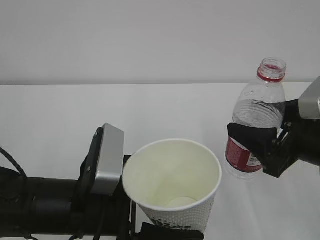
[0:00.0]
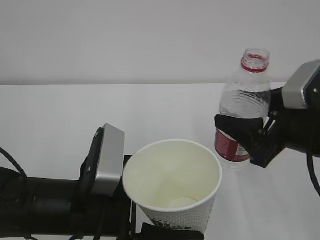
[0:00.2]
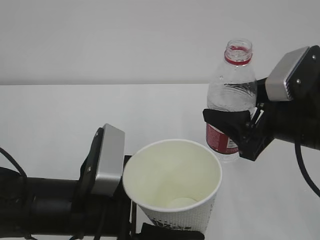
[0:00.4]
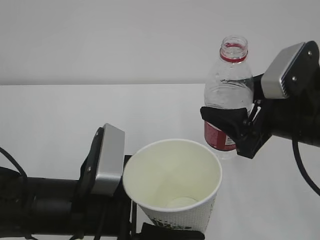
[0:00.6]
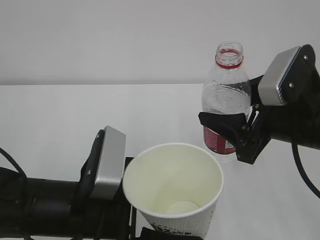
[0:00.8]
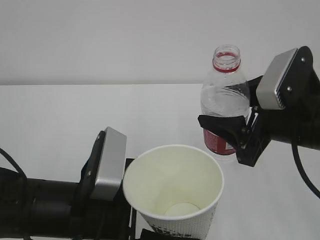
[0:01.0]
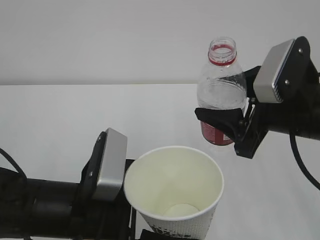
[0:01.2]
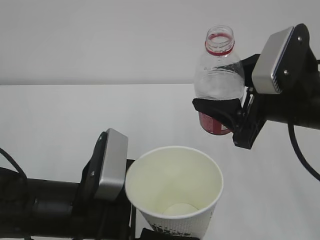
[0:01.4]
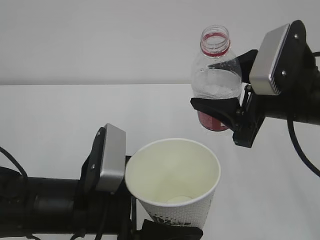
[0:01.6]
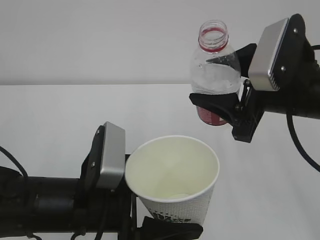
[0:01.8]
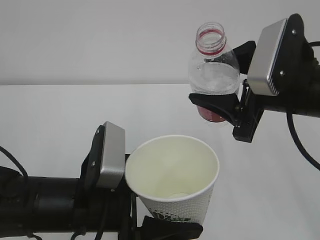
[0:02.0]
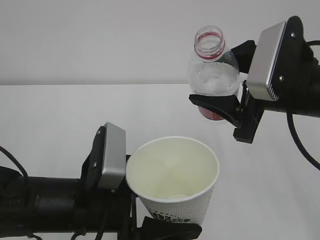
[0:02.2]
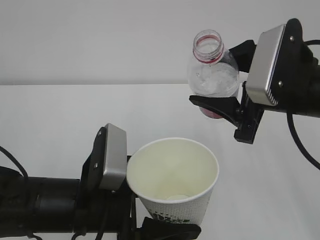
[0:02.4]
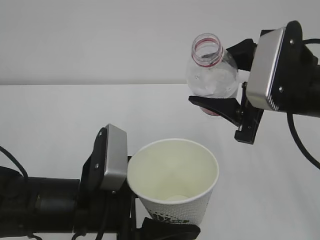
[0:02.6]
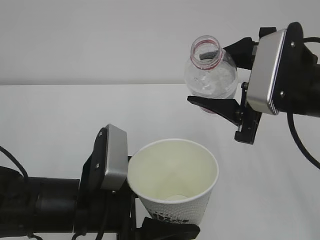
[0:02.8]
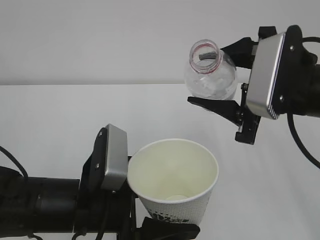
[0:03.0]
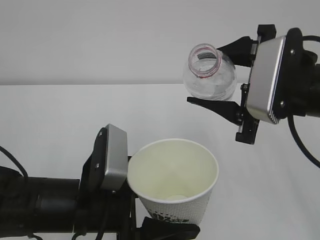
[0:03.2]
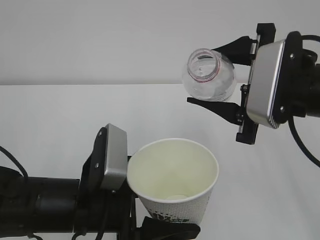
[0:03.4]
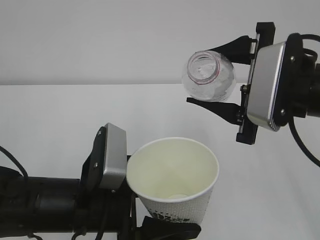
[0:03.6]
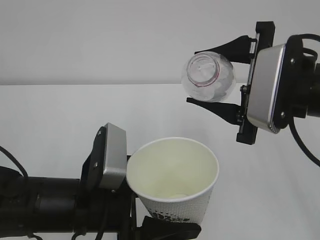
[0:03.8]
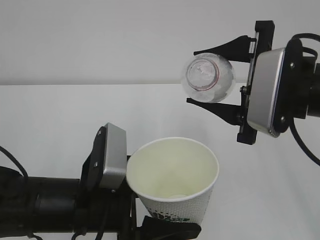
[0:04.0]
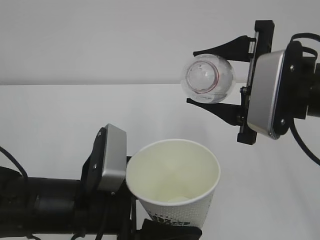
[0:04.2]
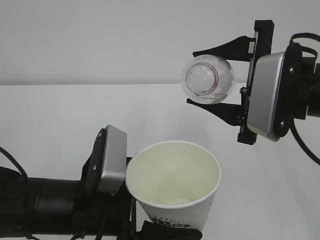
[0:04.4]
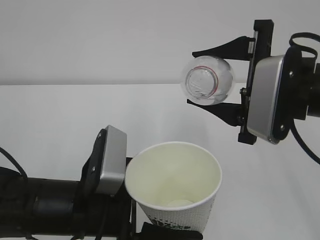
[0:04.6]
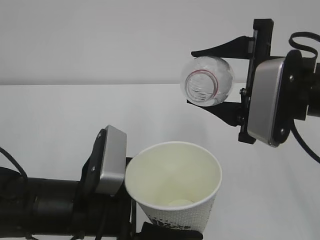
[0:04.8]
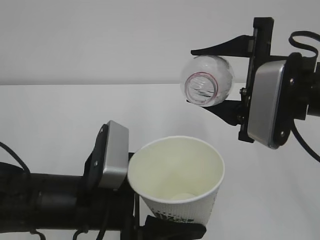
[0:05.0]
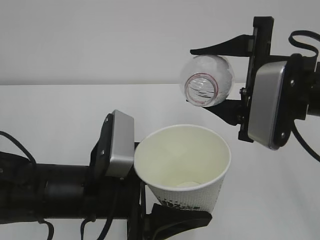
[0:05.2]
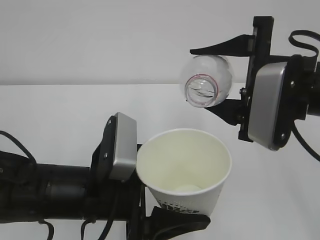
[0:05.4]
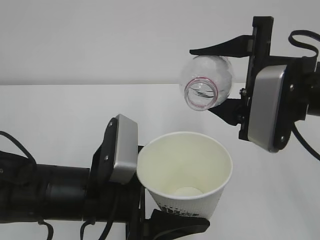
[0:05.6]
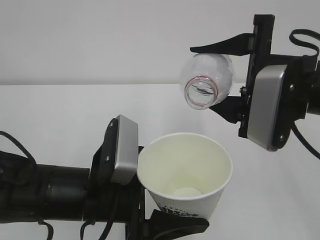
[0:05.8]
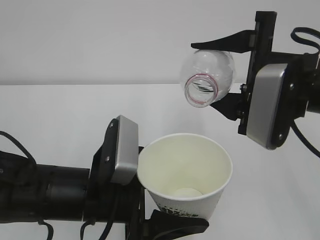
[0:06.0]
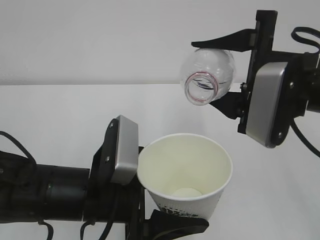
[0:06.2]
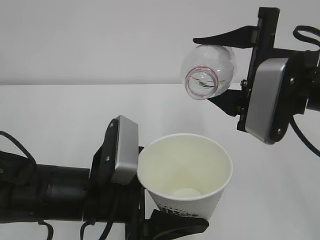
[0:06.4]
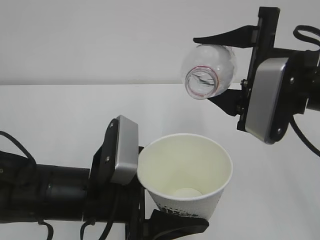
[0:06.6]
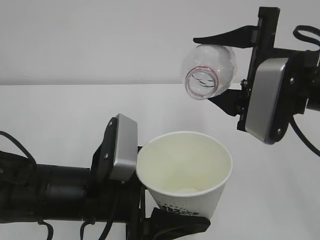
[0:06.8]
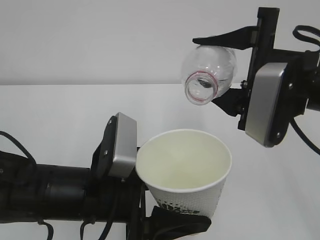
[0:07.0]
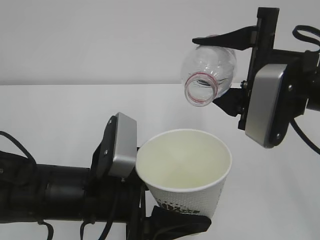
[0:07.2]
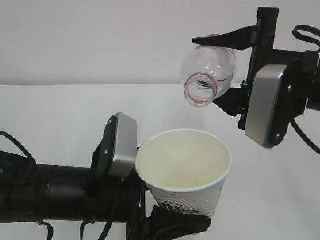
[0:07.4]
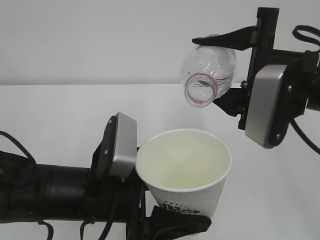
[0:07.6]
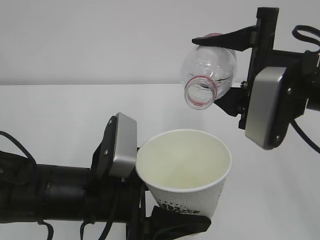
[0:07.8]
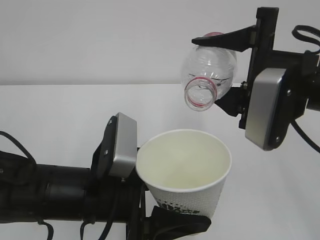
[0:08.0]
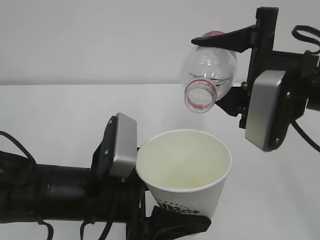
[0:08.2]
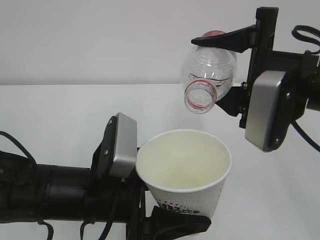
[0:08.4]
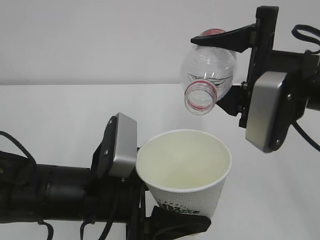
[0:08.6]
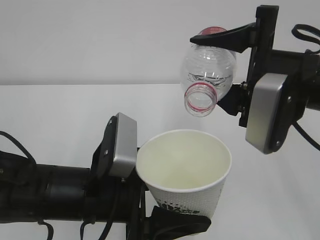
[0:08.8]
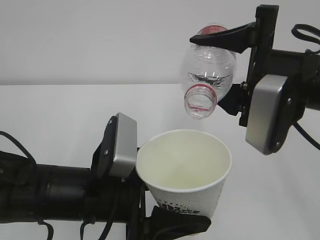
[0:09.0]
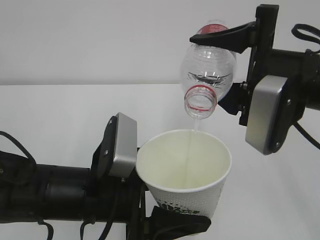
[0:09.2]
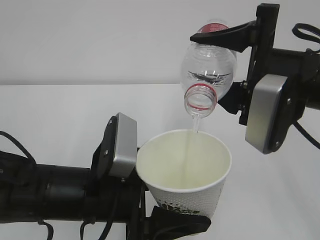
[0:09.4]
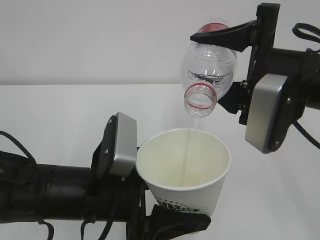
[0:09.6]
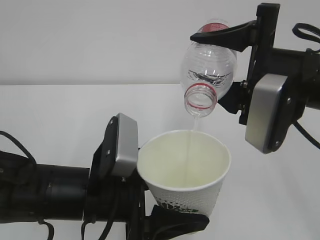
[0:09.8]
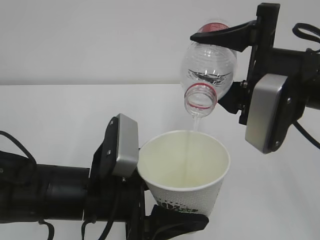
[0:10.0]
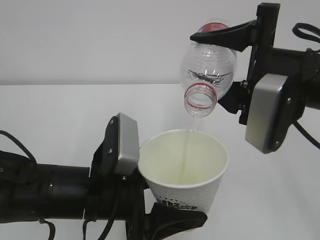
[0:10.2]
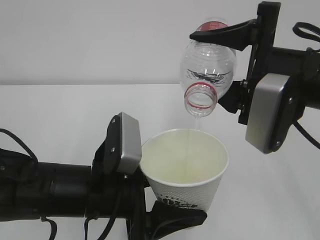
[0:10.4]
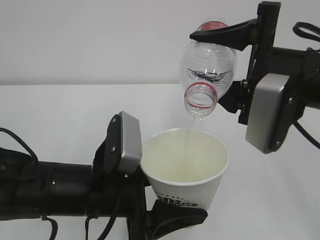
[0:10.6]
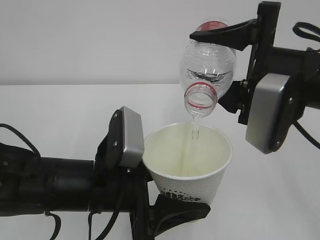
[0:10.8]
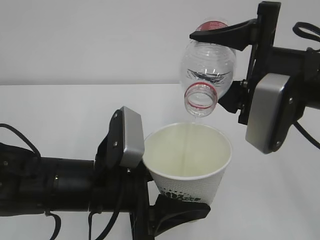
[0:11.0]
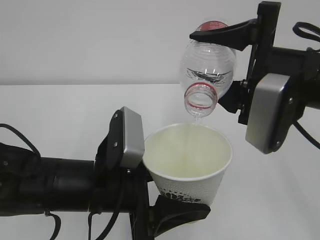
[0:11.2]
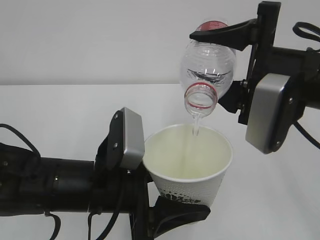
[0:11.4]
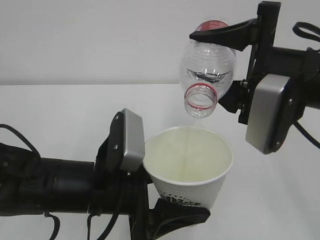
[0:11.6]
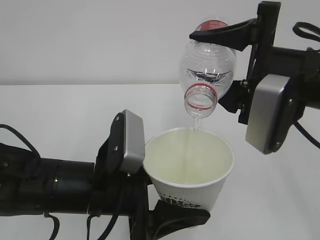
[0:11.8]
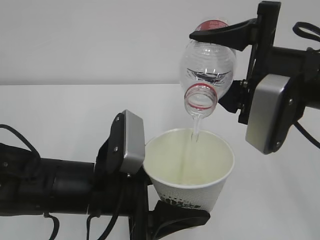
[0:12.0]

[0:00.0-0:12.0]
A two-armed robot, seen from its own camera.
0:00.0 to 0:01.6: The right gripper shifts approximately 5 cm upward.
0:03.0 to 0:04.4: The grippers move only a little.
0:04.4 to 0:06.0: The grippers make only small movements.
0:06.0 to 0:07.6: Both grippers stay about where they are.
0:07.6 to 0:09.0: The grippers move only a little.
0:09.0 to 0:12.0: The two grippers keep their place.

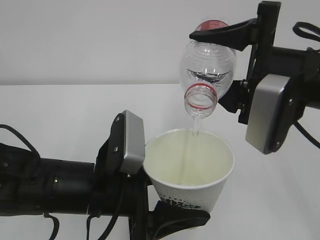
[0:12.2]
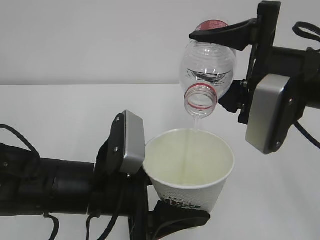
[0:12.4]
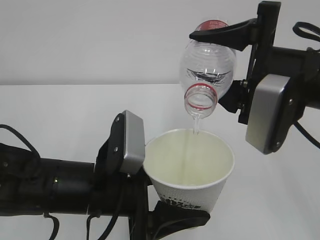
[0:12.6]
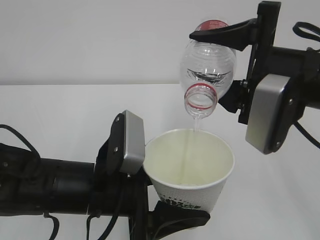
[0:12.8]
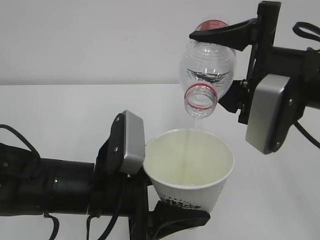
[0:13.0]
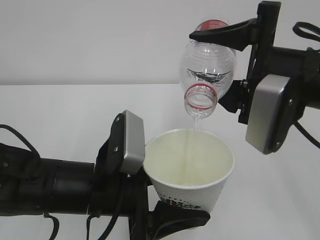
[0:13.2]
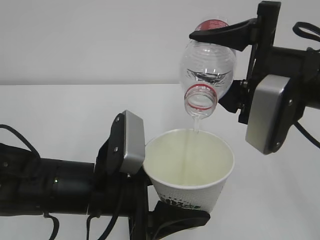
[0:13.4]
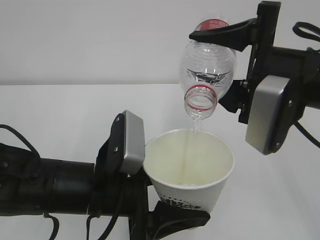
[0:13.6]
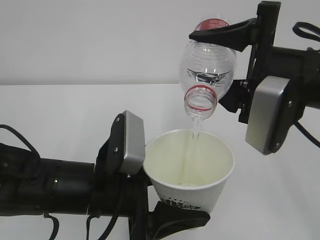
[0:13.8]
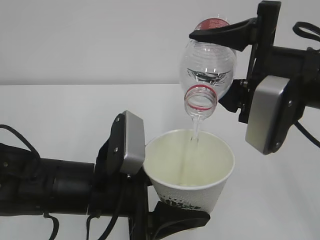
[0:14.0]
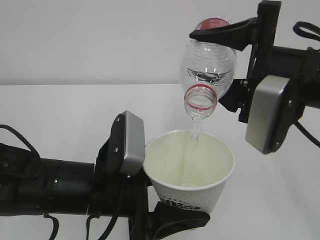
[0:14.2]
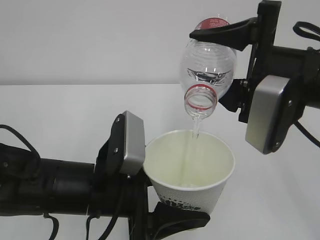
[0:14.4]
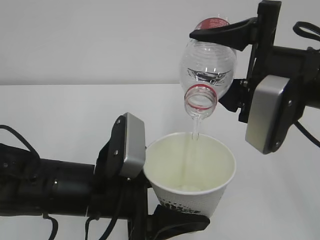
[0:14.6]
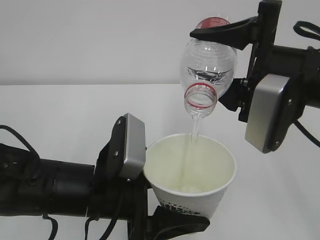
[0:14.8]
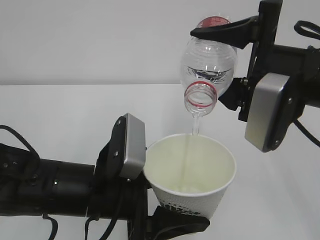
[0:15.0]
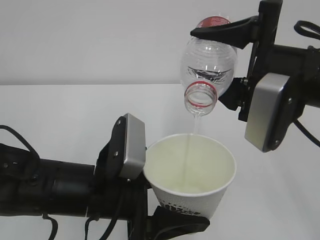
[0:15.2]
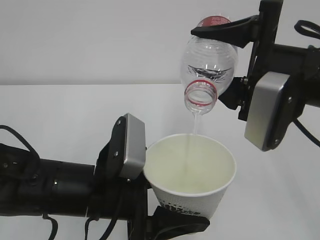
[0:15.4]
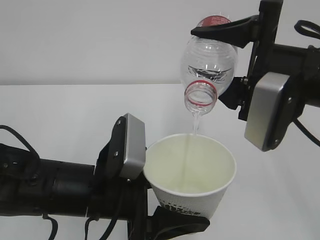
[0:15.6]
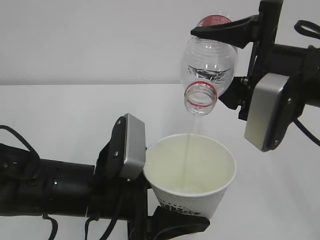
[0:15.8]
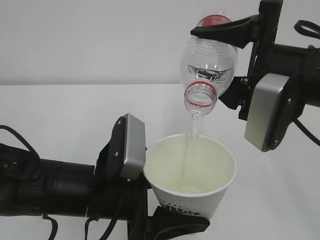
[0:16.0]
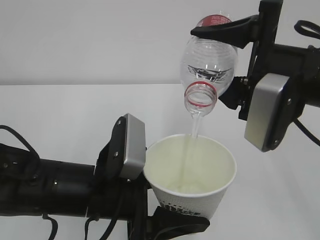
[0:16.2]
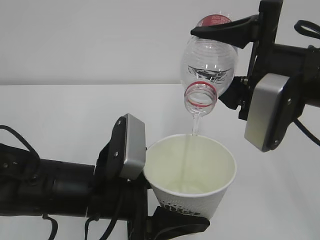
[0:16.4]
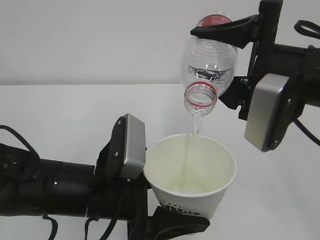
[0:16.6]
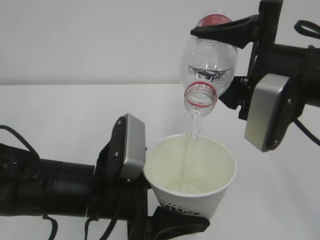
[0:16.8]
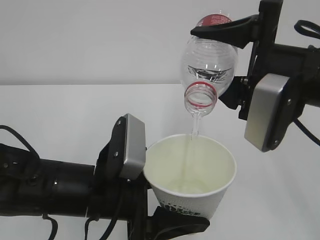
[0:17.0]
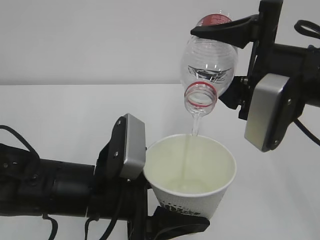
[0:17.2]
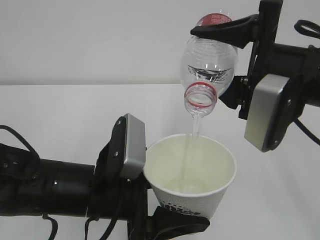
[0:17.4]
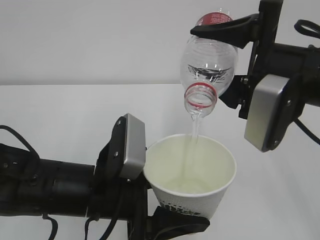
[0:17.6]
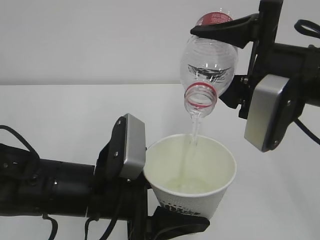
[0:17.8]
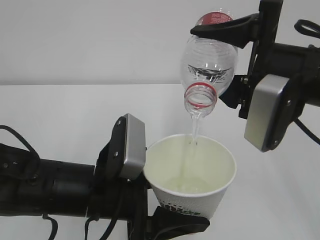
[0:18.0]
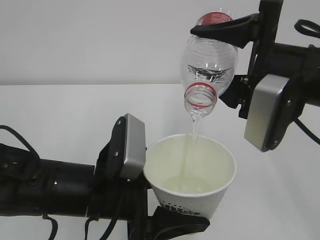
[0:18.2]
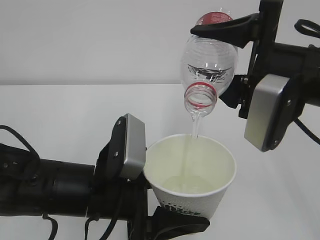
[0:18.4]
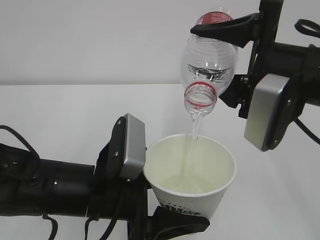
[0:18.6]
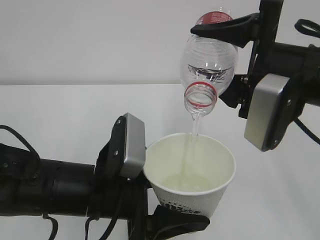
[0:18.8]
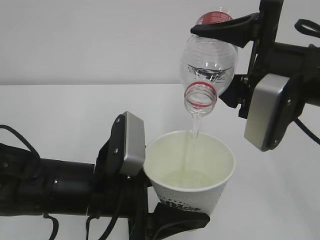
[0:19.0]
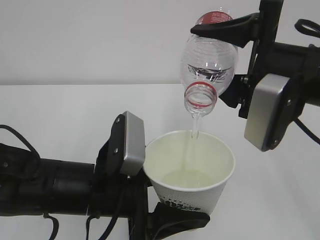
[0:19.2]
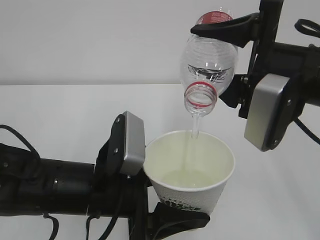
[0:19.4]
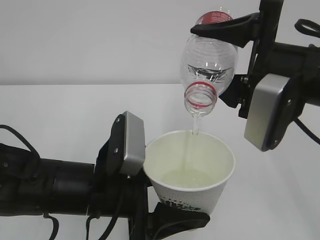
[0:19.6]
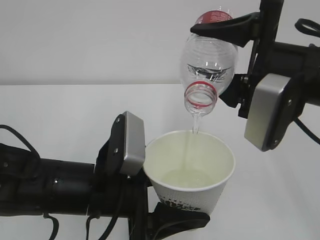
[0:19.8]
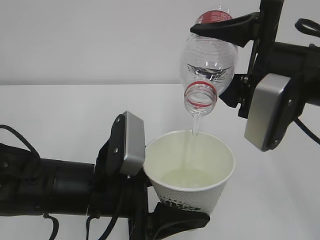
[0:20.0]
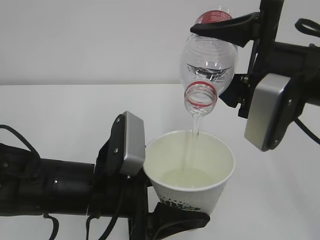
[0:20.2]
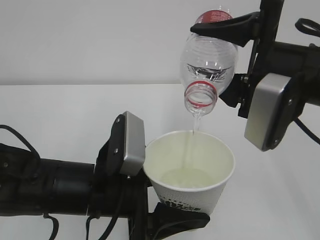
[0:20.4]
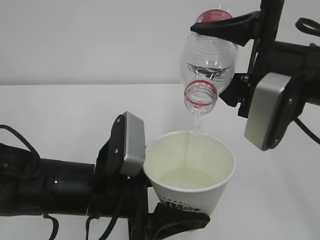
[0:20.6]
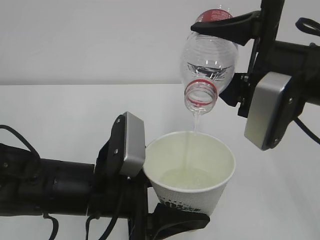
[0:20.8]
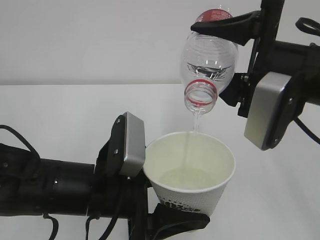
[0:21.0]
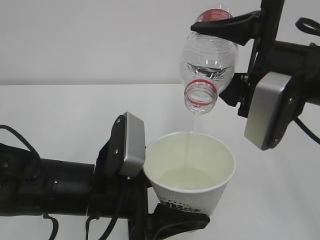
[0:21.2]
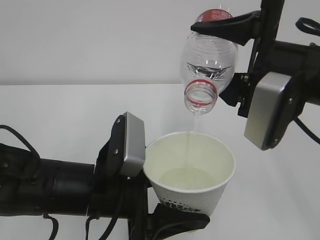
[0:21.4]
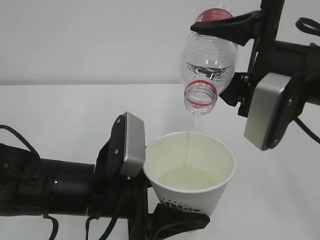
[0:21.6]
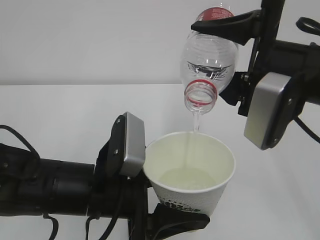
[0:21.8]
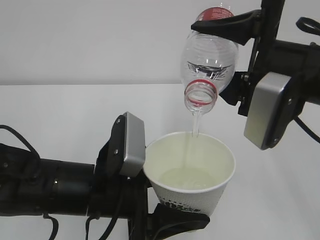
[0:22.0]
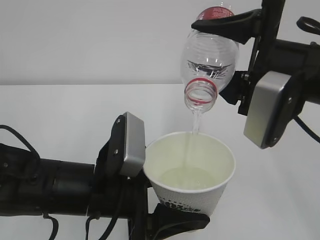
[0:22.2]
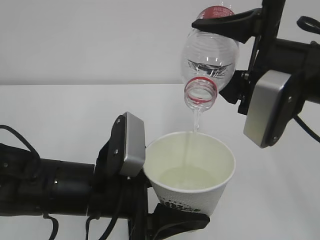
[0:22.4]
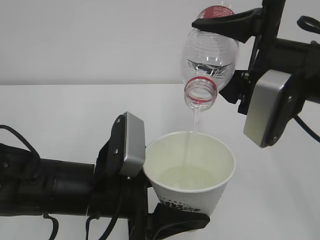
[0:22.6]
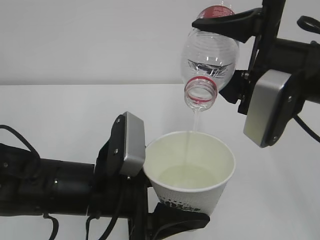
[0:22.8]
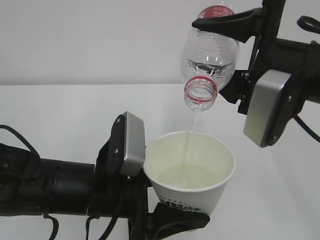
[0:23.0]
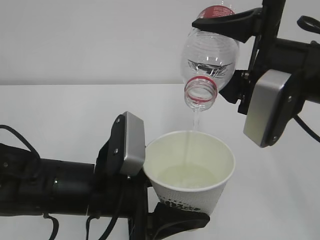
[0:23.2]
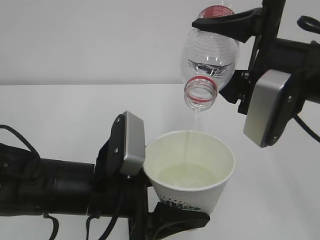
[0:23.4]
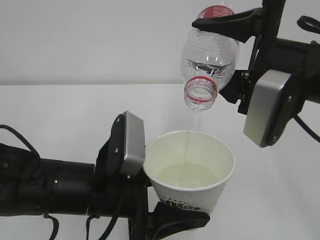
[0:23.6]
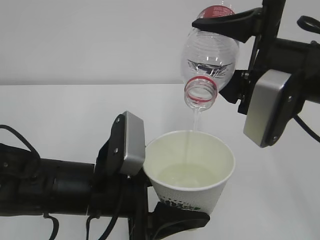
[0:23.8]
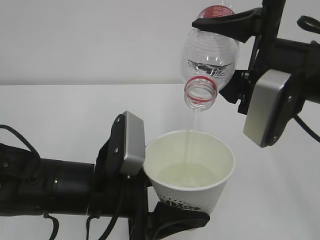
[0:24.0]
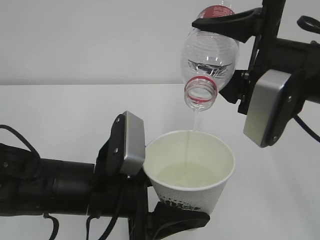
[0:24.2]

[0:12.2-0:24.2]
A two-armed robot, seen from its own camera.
0:12.2 to 0:21.2: Neither gripper changes place.
0:21.2 to 0:24.2: Both grippers stay put.
